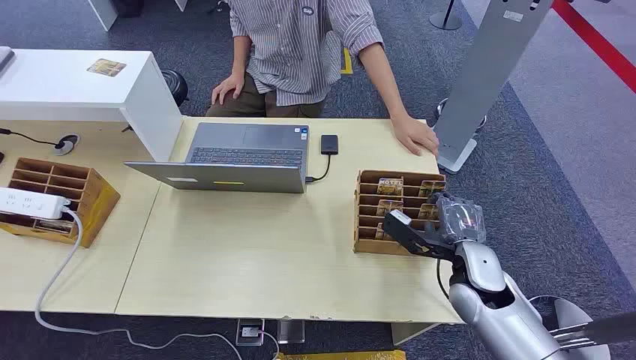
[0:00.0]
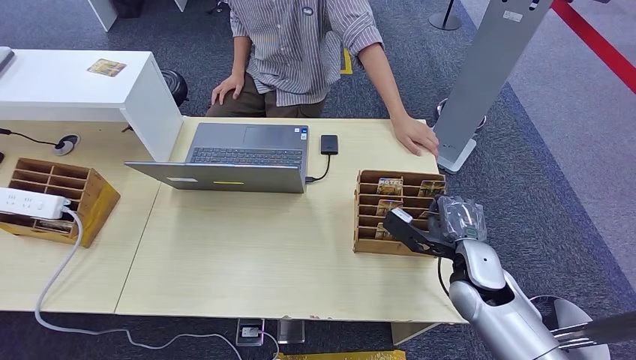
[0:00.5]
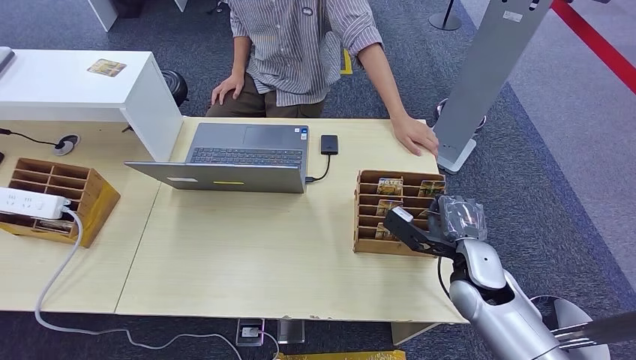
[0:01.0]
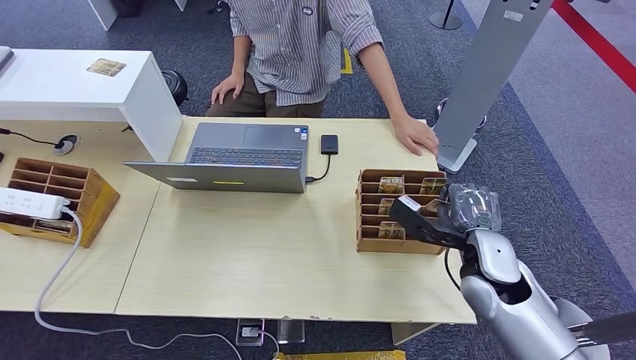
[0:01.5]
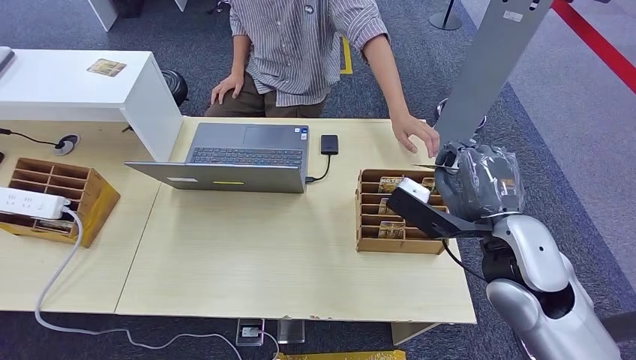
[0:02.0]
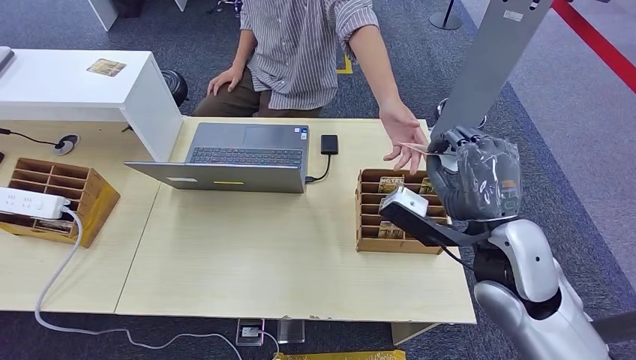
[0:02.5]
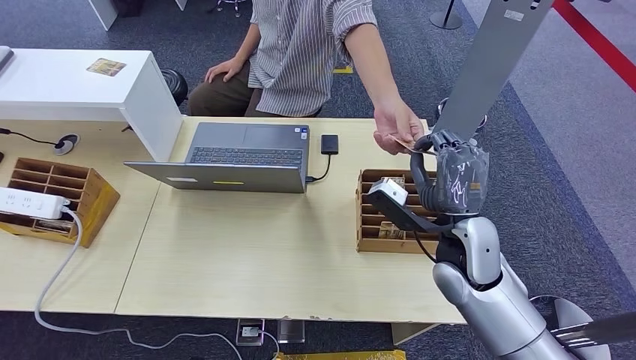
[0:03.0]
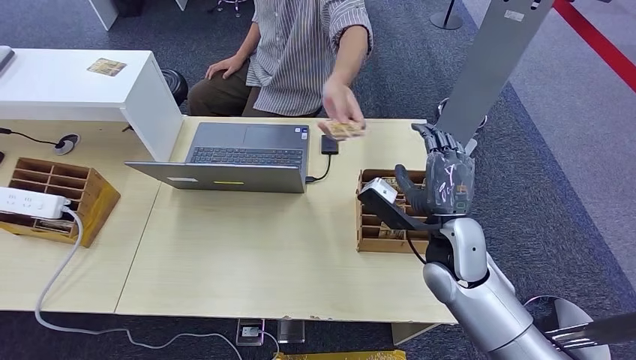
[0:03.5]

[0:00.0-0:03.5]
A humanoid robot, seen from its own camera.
Step, 0:00.0 to 0:01.5: Pick up the room card from the card holder.
Step, 0:03.0 to 0:03.5: Hand the room card to the target.
0:02.0 to 0:03.5: The right hand travels downward and forward by roughly 10 cm.
